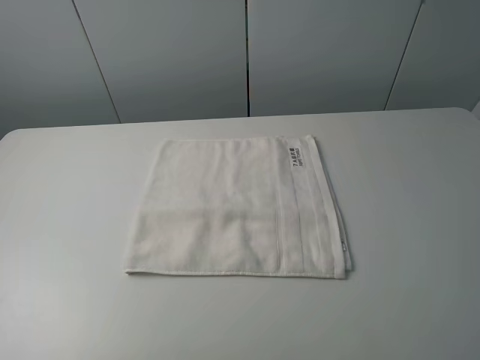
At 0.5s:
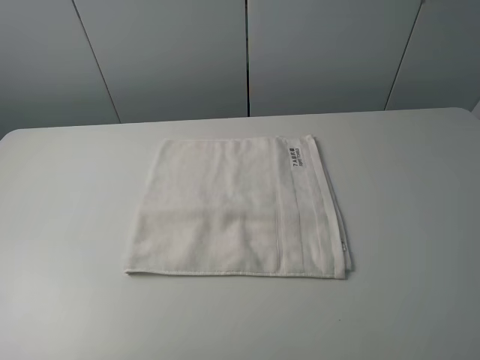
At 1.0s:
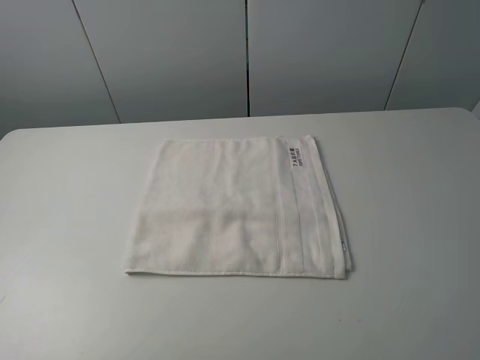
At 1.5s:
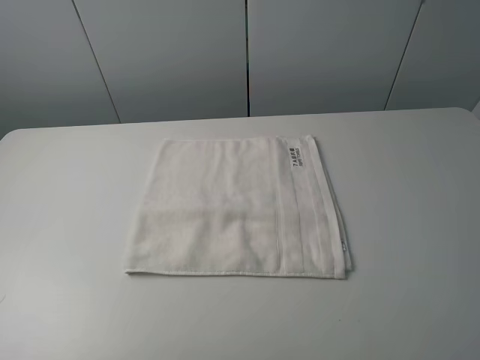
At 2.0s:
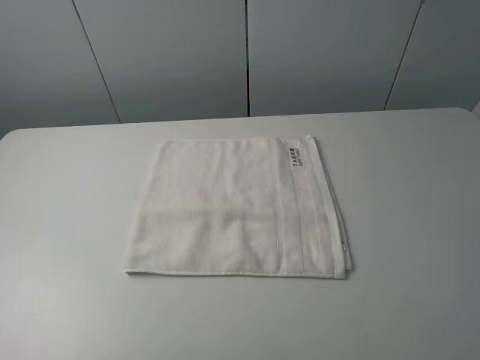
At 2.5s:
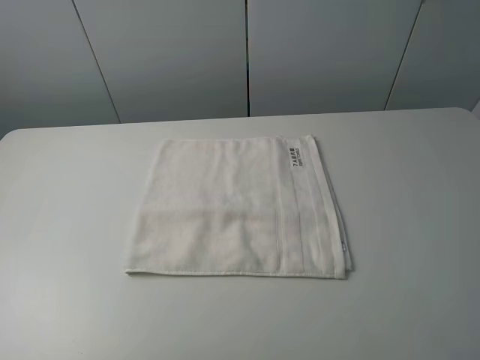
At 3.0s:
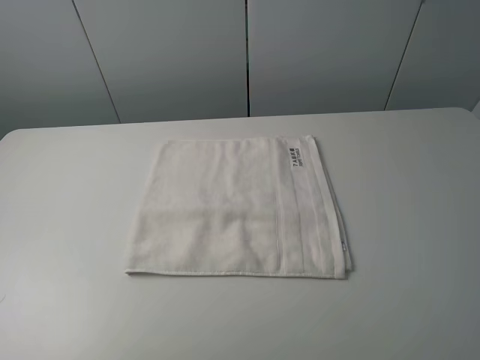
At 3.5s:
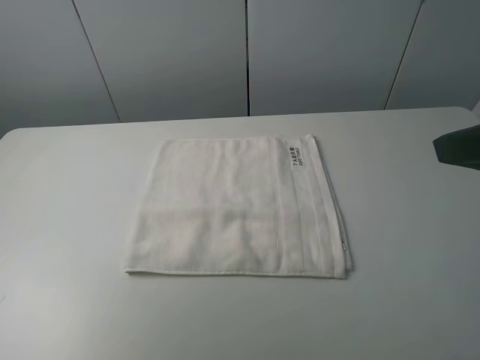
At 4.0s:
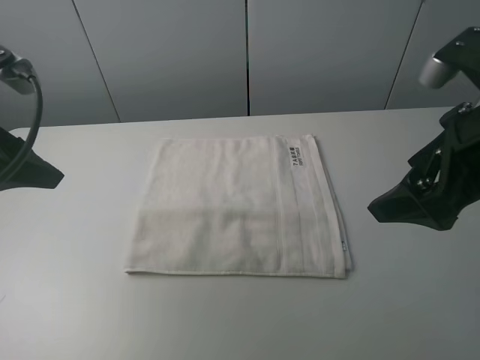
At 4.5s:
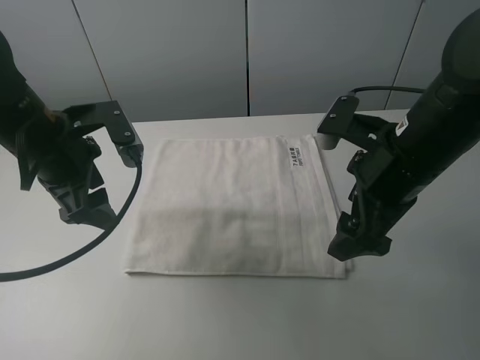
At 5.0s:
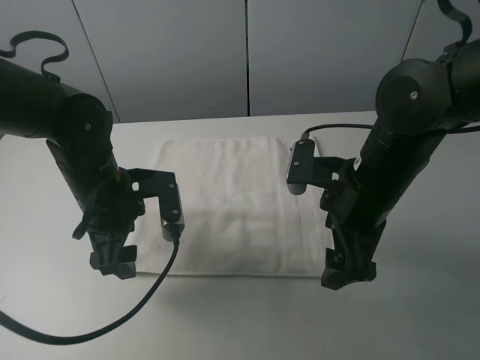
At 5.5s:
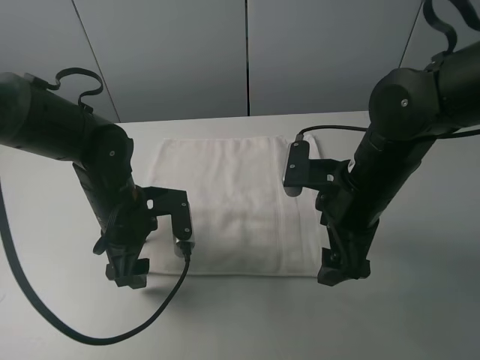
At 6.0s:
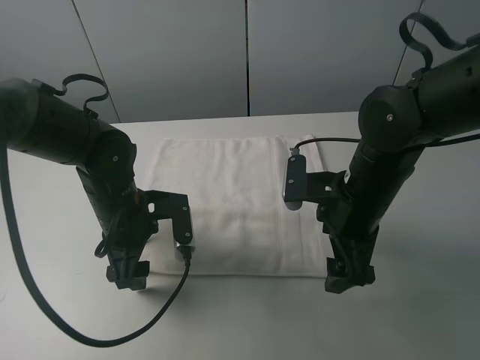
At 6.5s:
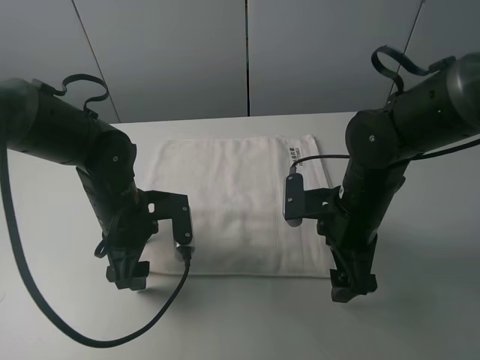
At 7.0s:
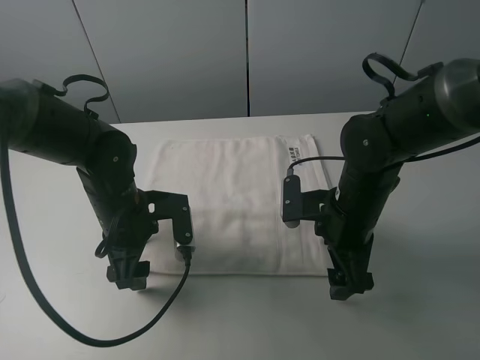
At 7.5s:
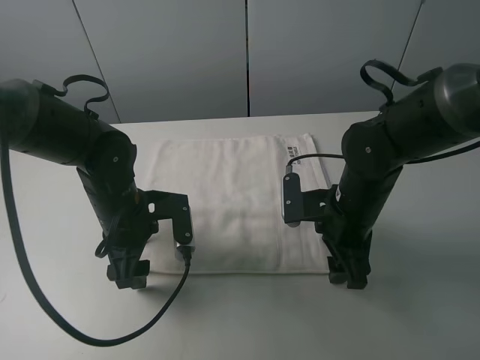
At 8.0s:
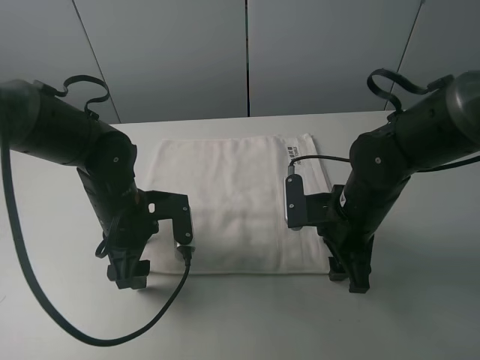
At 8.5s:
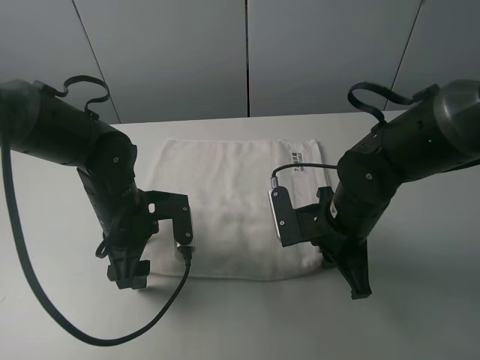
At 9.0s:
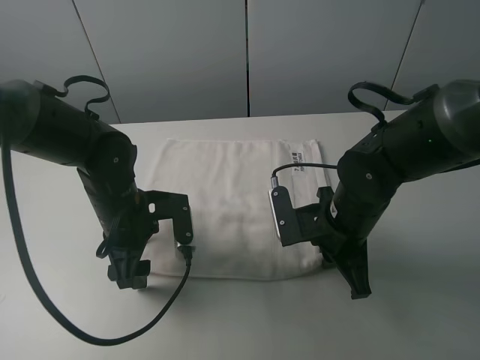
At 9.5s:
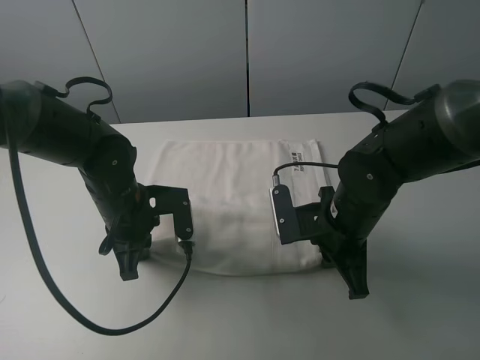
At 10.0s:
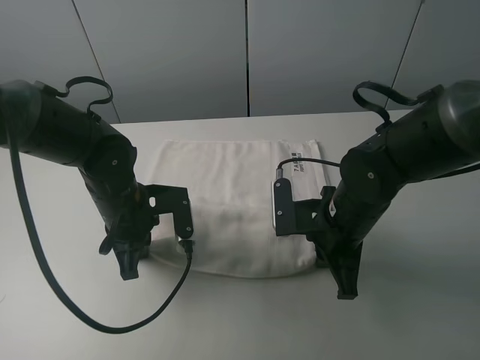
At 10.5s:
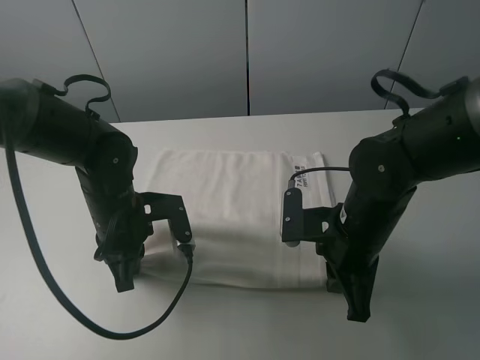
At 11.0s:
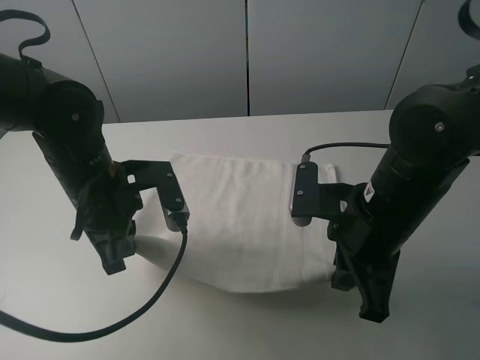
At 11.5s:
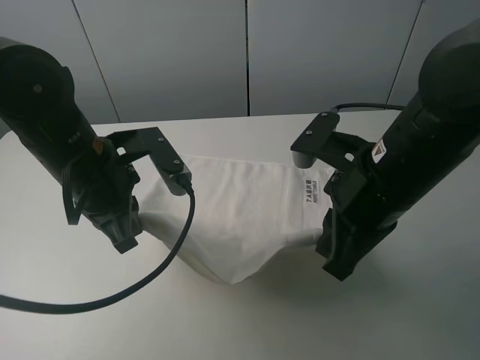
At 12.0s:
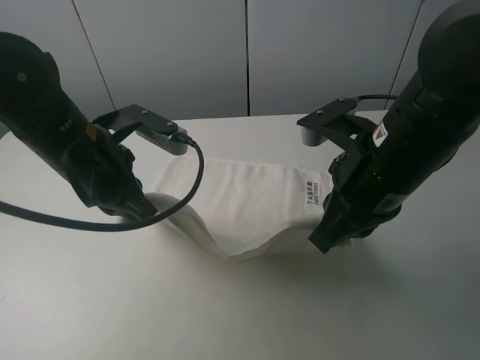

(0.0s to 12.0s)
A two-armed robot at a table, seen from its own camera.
Task of the whole recording: fold the towels on the table.
Step, 0.0s - 8.0s: Grasp the white towel with the right gripper.
Step, 8.5s - 9.5s: Grasp the white towel with the left gripper.
0.0s - 2.0s: Both grippers stay about where they are.
2.0s - 4.0s: The left gripper is displaced forward and to the right by approximately 25 cm, while the right gripper heads forward, covering roughly 20 cm.
4.0s - 6.0s: The left gripper is displaced downward and to the right by some 20 cm. The right gripper shifts roughly 15 cm downward and to the left.
6.0s - 8.0s: The right gripper closes up.
8.0s - 10.0s: The right gripper closes up; the left gripper closes.
10.0s - 12.0s: Both grippers travel together upward, some 10 cm.

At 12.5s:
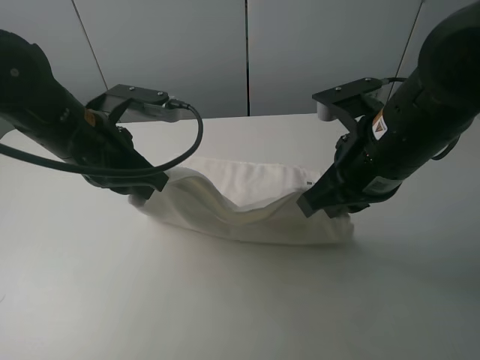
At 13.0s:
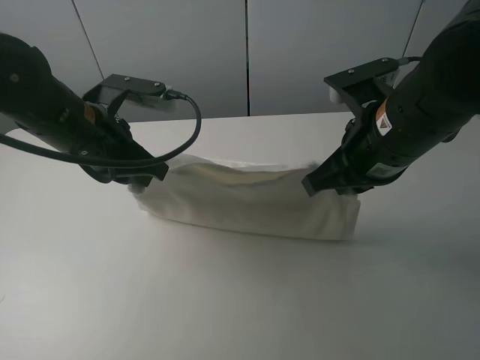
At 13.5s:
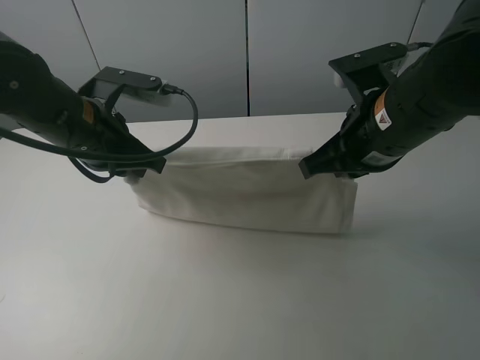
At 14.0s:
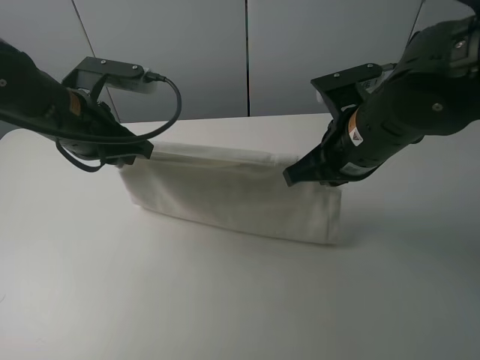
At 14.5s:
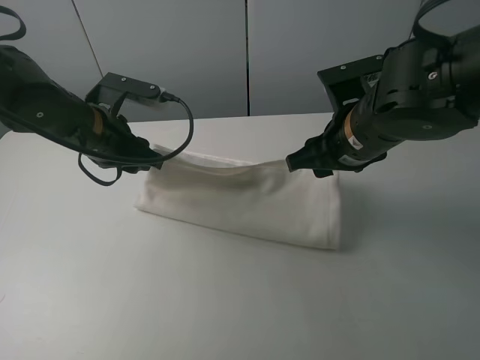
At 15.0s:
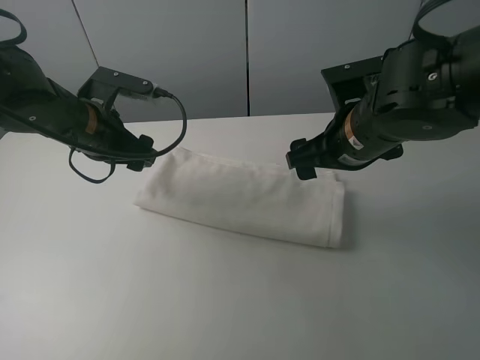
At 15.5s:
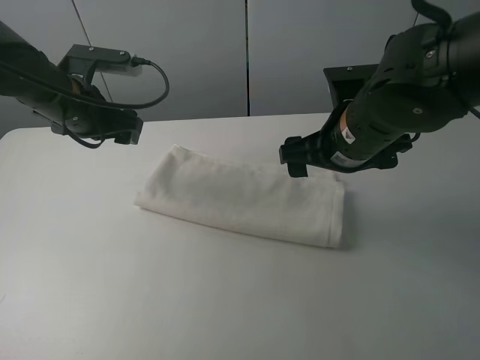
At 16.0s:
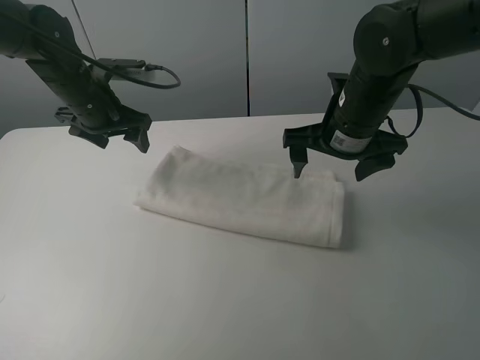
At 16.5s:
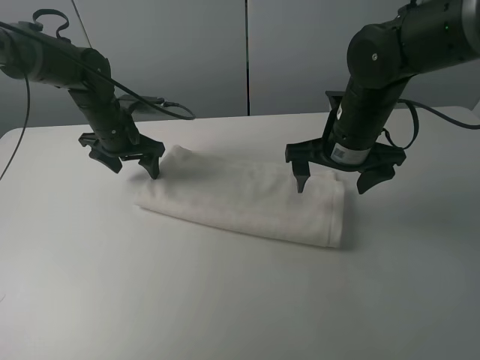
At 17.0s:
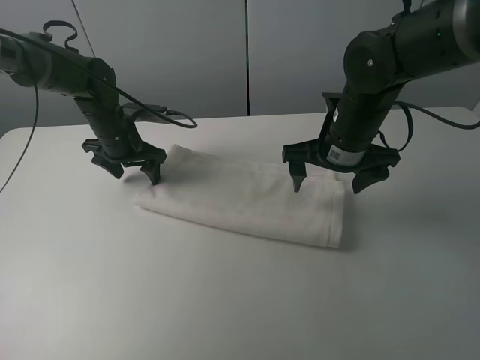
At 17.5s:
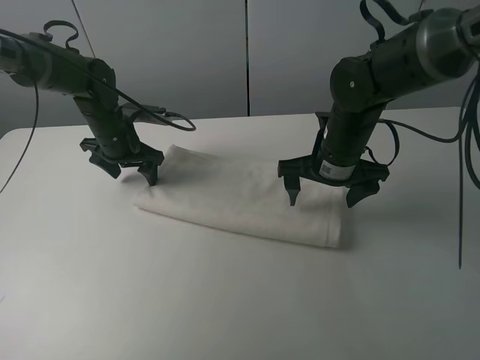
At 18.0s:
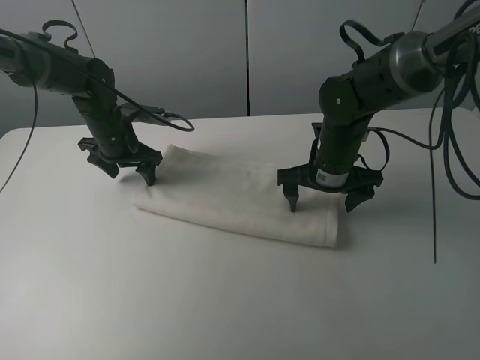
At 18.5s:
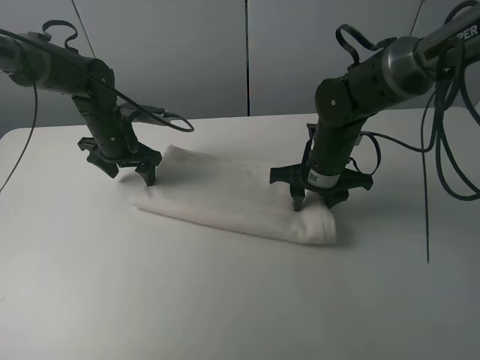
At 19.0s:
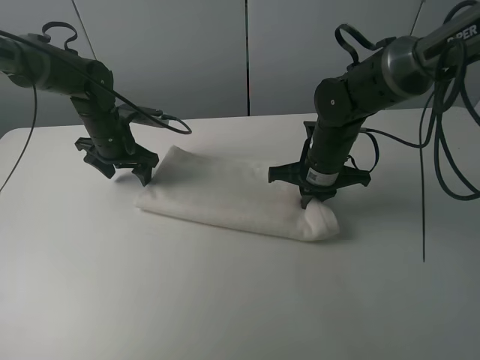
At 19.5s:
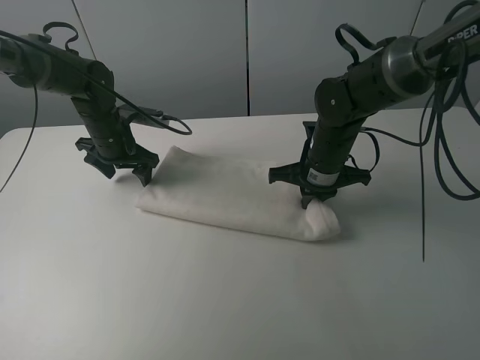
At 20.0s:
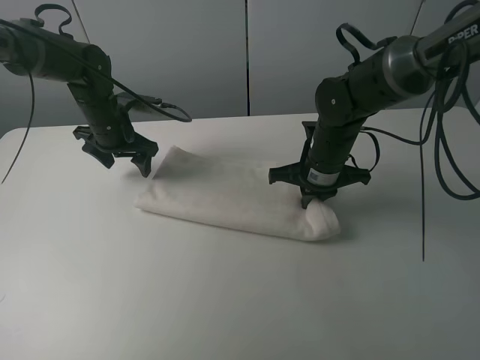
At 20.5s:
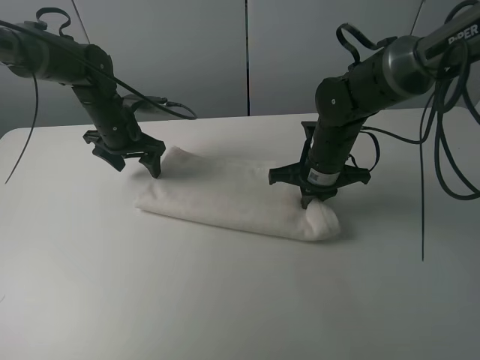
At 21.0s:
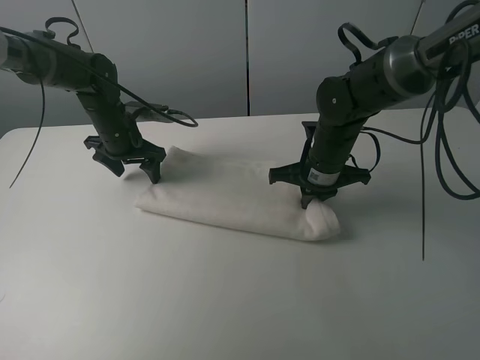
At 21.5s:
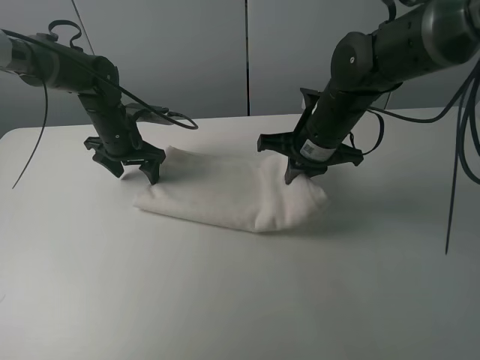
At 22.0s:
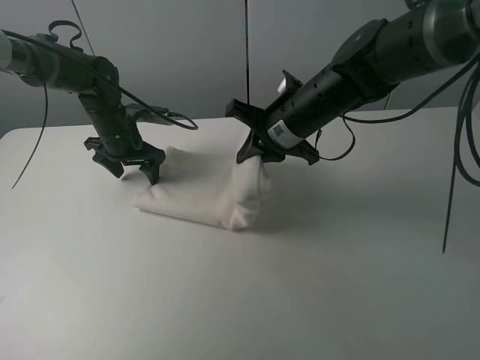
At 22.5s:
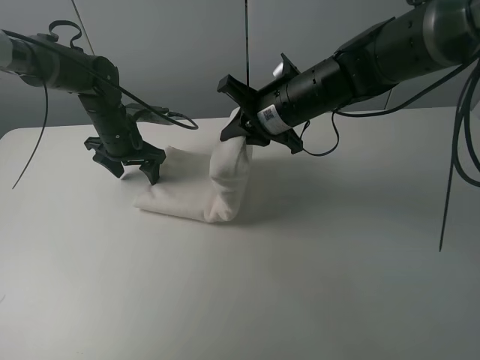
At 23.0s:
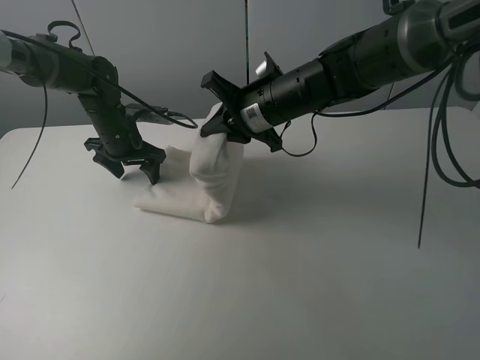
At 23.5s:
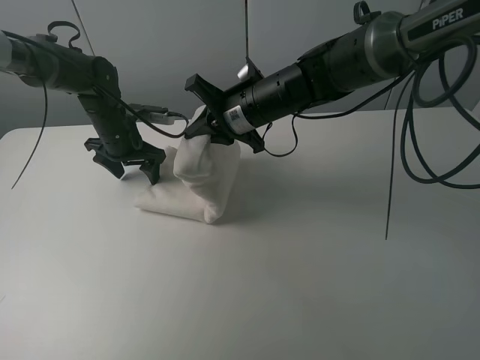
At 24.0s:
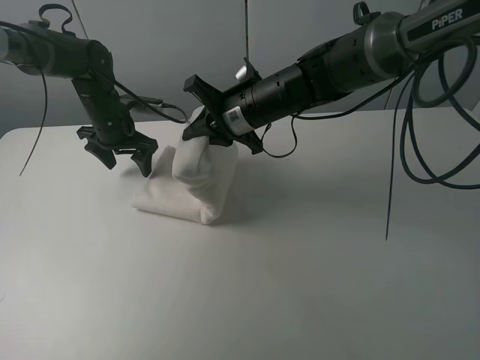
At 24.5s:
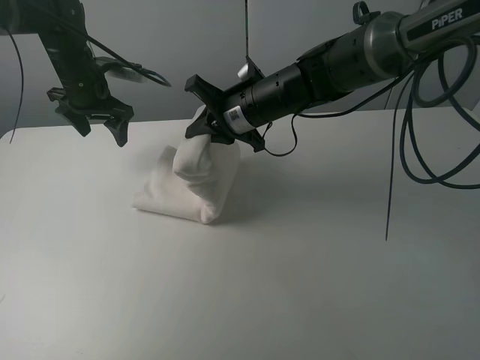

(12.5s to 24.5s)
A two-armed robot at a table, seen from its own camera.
Task of the whole recording: fold the towels on the table.
Step, 12.5s - 14.5s: Fold the white towel upwards with the right gripper.
Step, 15.0s - 16.5s: Press on the white towel with the left gripper.
12.5s - 14.5s: The two grippers go some 5 cm forward. The left gripper opens up. Meanwhile the right gripper opens its fingers.
14.5s - 16.5s: The left gripper is displaced forward and downward by about 15 cm, and opens its fingers. The right gripper ends up some 5 cm from where it was, and opens.
16.5s - 18.5s: The right gripper heads downward, covering some 5 cm, and closes its fingers.
18.5s - 20.5s: The grippers make only small movements.
20.5s - 22.5s: The right gripper goes about 10 cm upward and to the left.
22.5s - 24.5s: The left gripper goes approximately 10 cm upward.

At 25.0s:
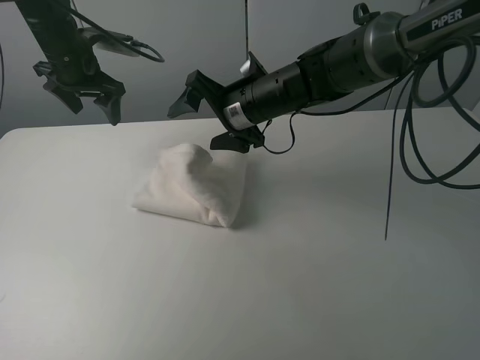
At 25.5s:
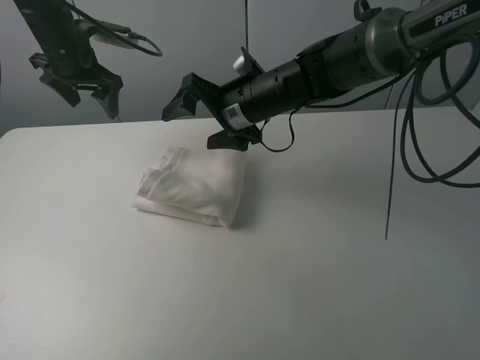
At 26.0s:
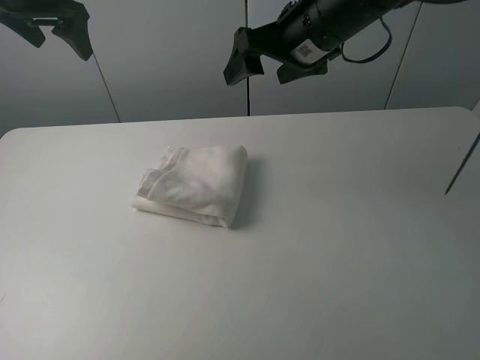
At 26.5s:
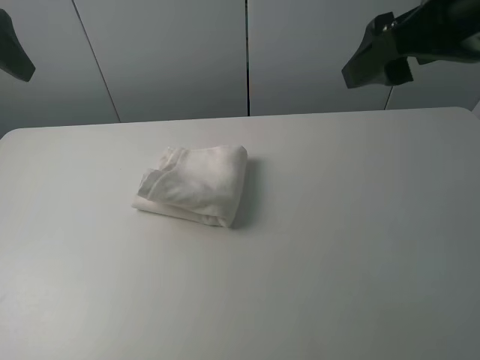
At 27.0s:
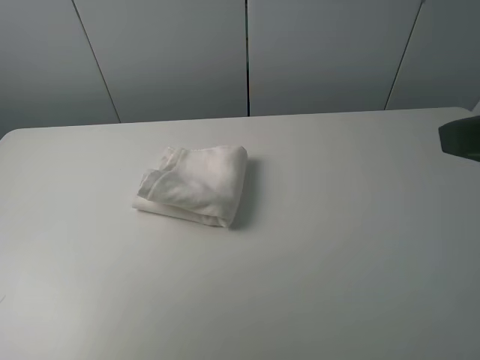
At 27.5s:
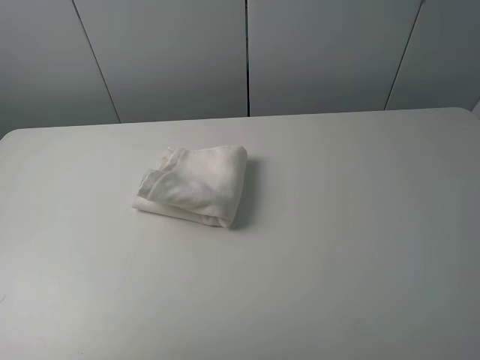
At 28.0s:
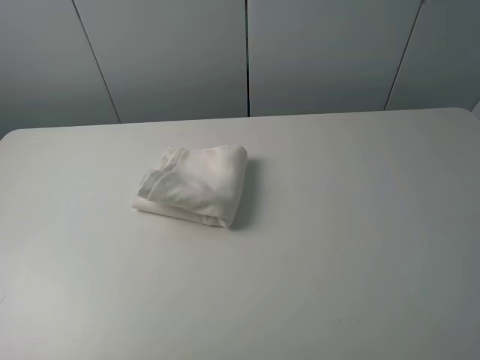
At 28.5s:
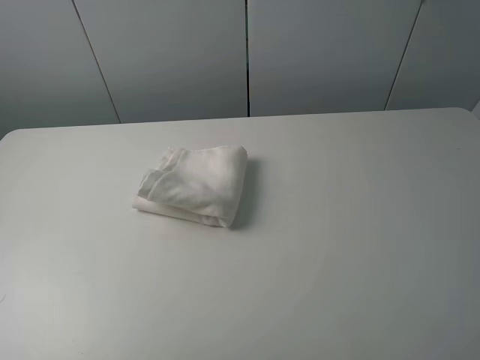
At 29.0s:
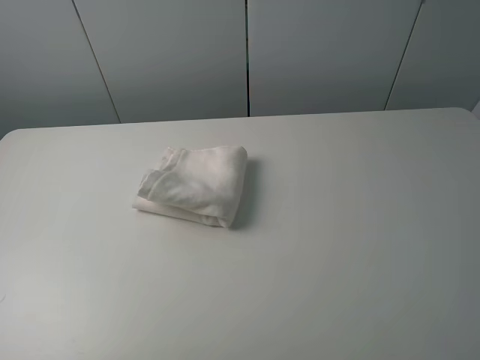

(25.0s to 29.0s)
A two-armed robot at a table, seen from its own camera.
Task of the whole recording: fold the towels on the table.
25.0s - 27.0s: The right gripper is displaced backward, to the right and upward by about 40 cm; the left gripper travels backward and to the left by approximately 35 cm.
27.0s - 29.0s: The right gripper heads backward, covering roughly 10 cm.
